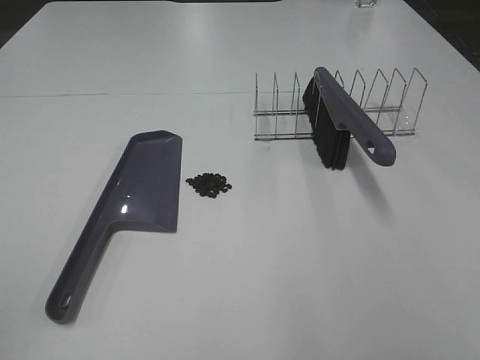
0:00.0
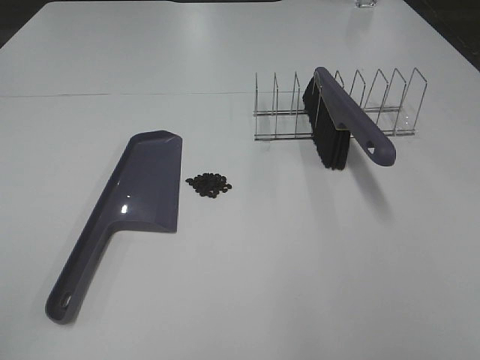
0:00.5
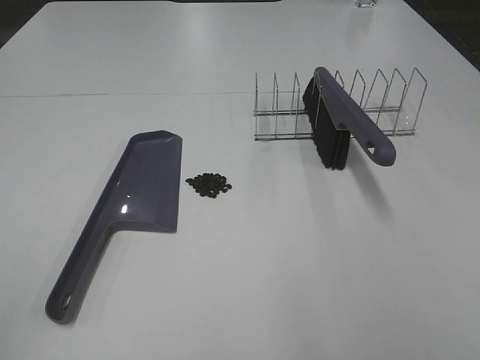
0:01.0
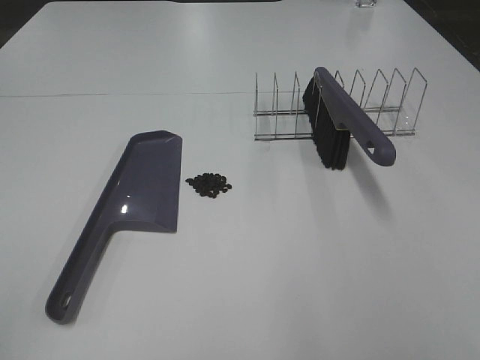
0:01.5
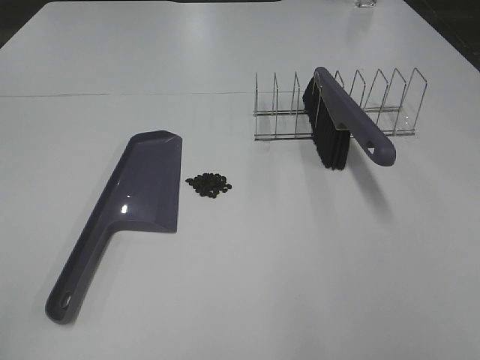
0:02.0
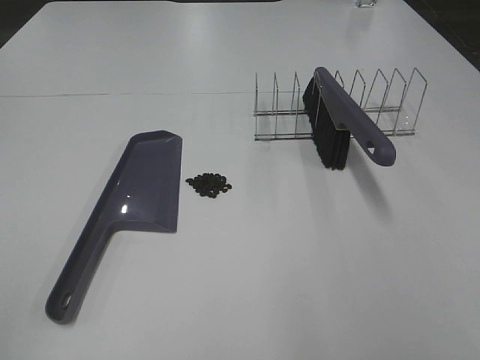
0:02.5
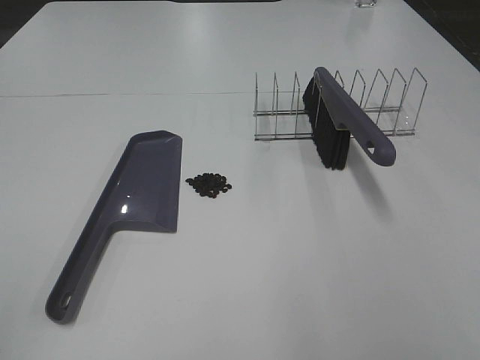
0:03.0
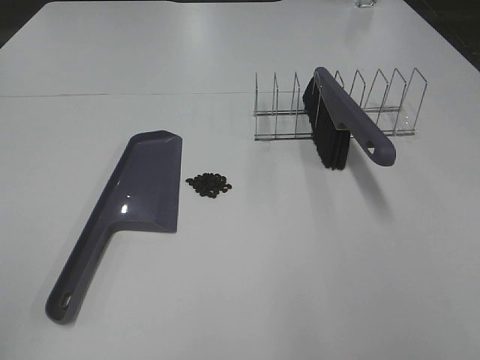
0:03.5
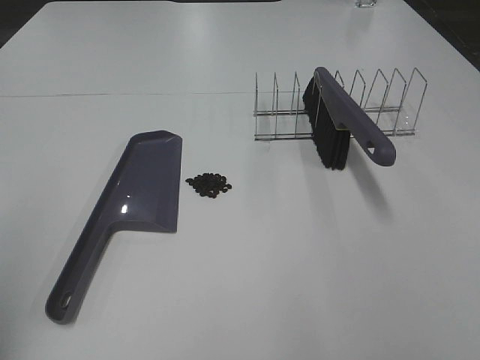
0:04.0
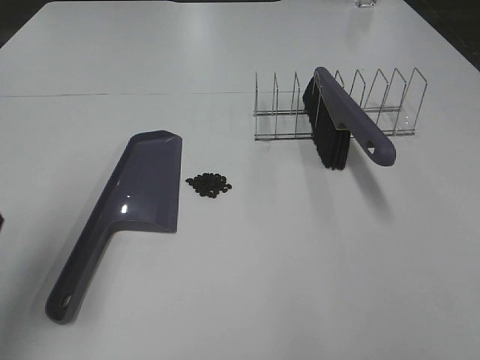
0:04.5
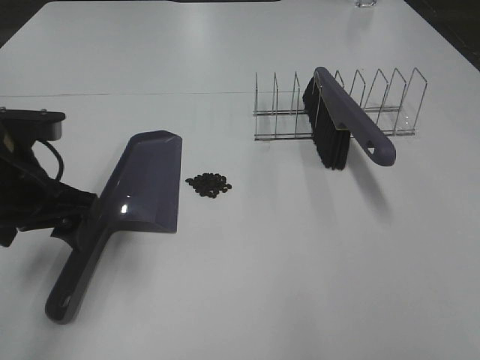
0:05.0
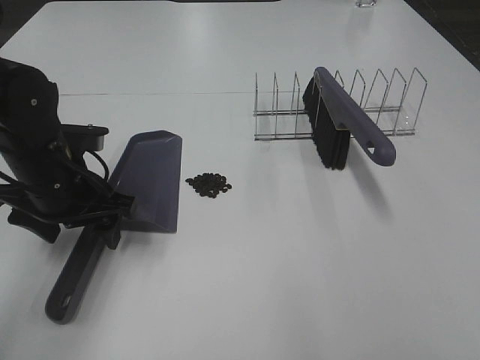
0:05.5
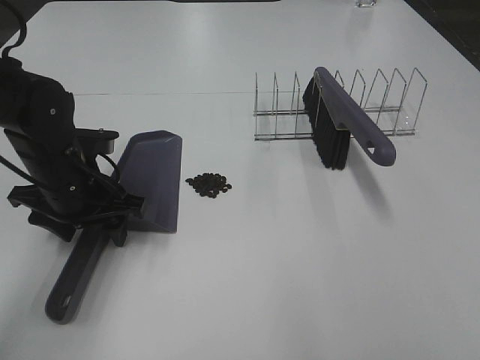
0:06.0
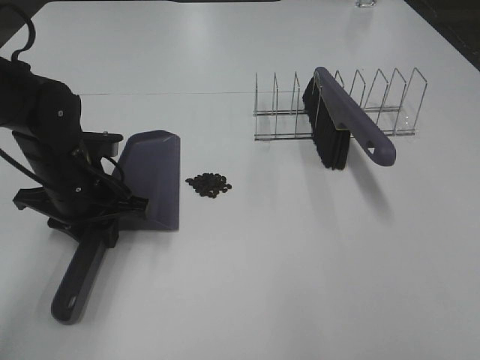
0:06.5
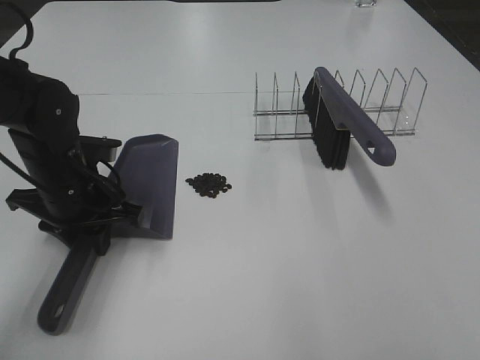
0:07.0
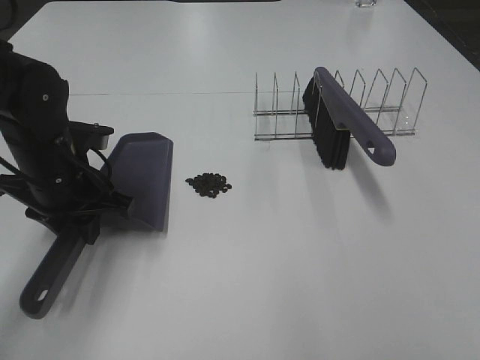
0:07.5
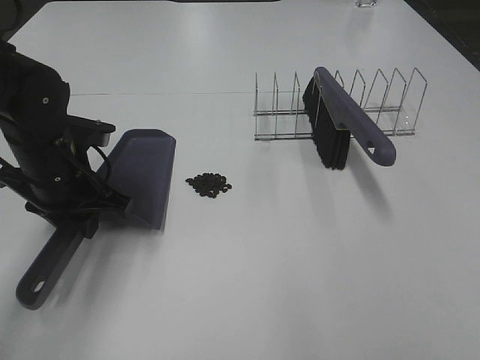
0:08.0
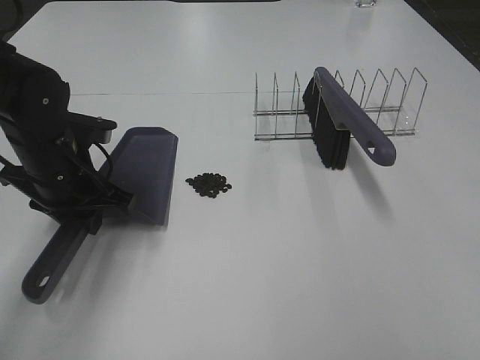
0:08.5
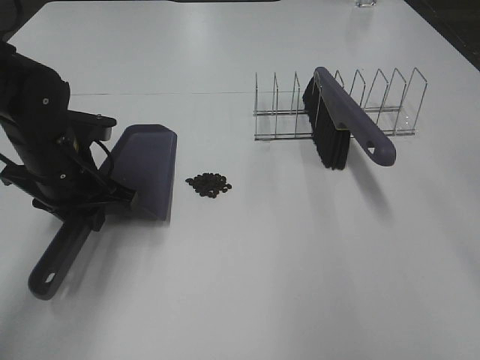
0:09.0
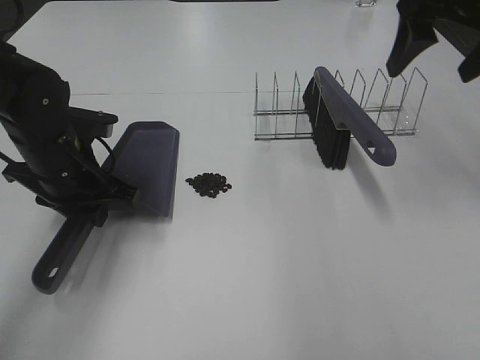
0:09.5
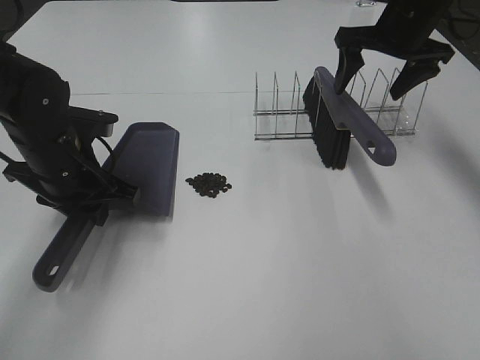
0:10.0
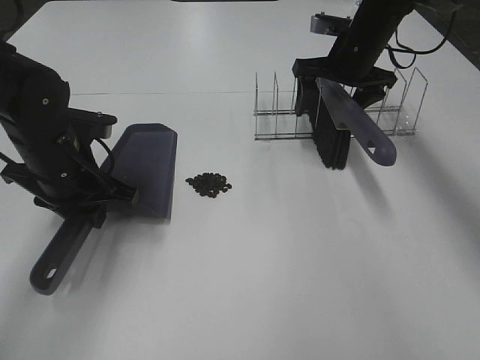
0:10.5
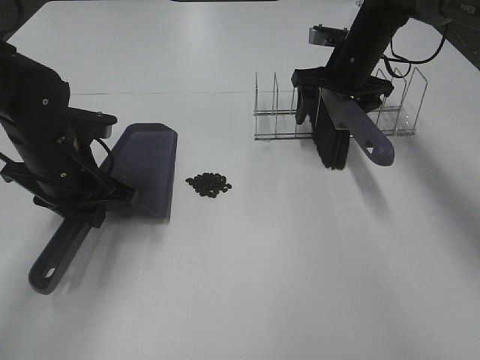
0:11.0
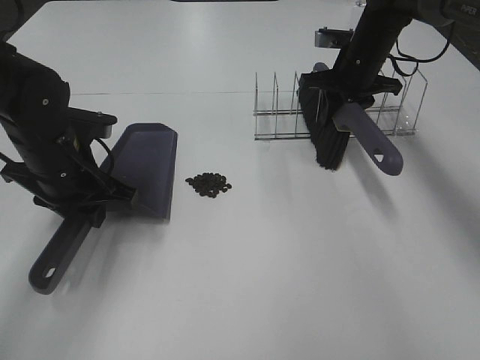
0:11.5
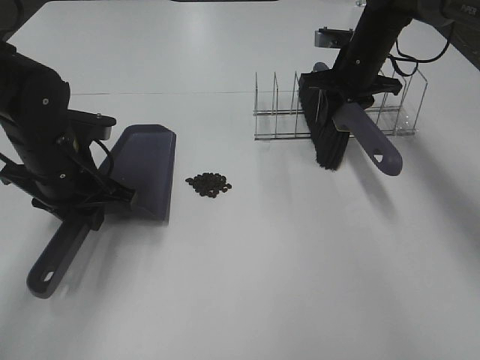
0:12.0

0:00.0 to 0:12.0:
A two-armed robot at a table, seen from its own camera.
Task of the whole recording: Sweep Coffee Bean.
Step, 0:00.0 to 0:06.0: Left hand: grab the dustpan.
Step, 0:08.0 to 0:11.0: Right hand:grab the broom.
0:00.0 to 0:02.0: Both grippers stay put.
0:04.0 to 0:06.0: The left gripper moves forward, downward and to the right, approximately 35 cm, and closes its fingers.
0:06.0 to 0:08.0: The left gripper closes up.
0:08.0 to 0:10.0: The right gripper heads forward, covering some 50 cm.
0:10.0 to 0:12.0: The right gripper shifts approximately 5 cm downward, and closes up.

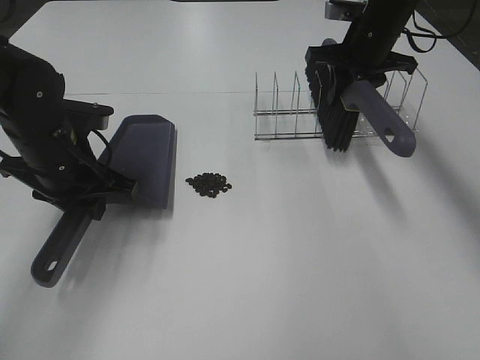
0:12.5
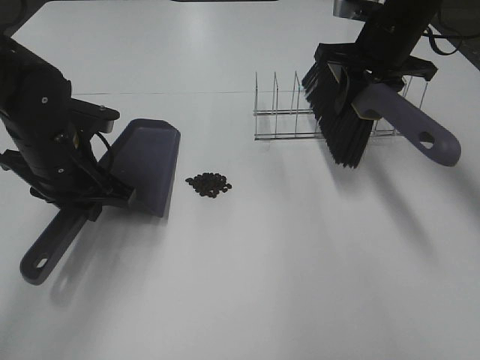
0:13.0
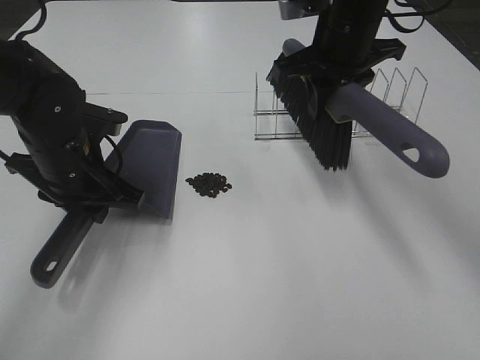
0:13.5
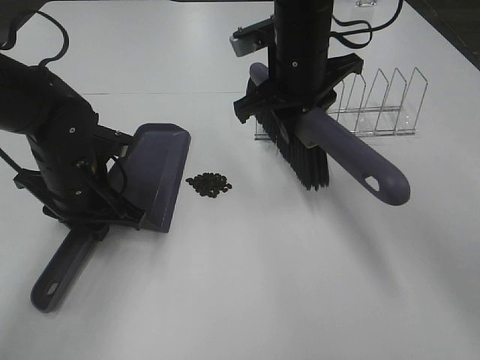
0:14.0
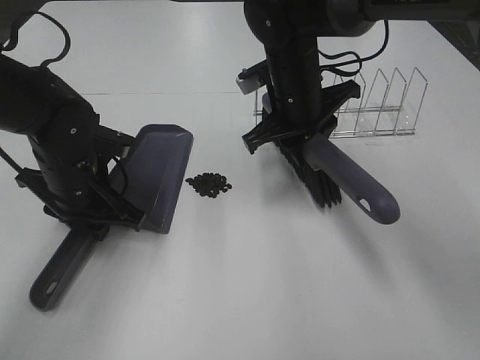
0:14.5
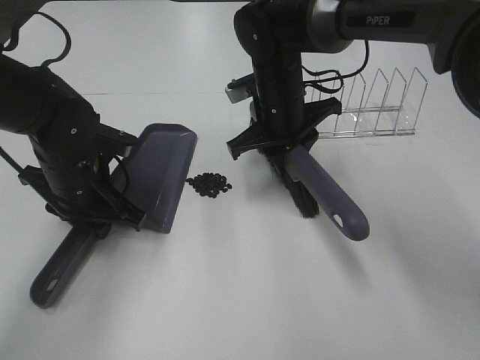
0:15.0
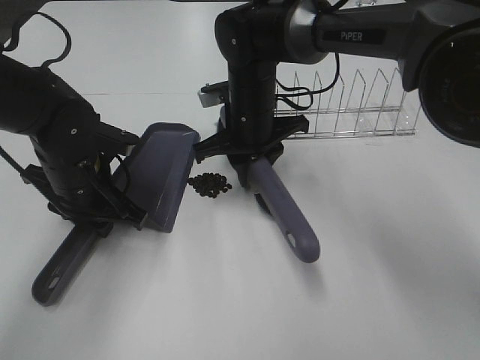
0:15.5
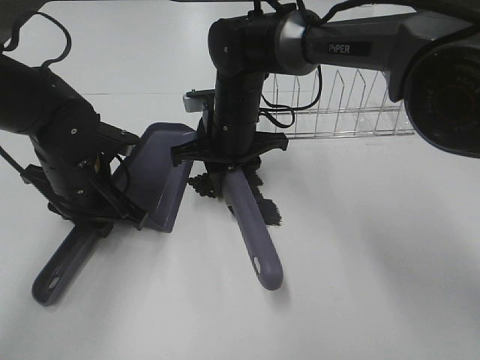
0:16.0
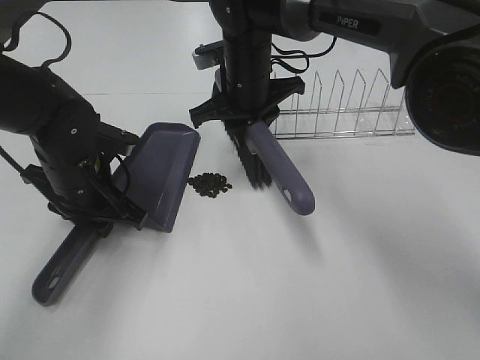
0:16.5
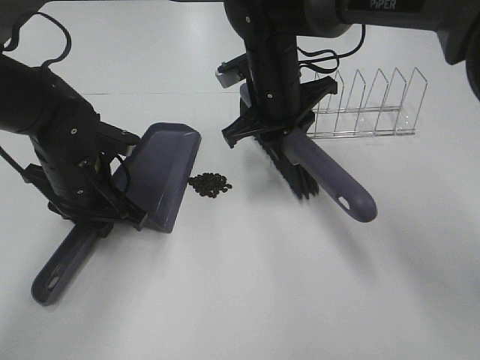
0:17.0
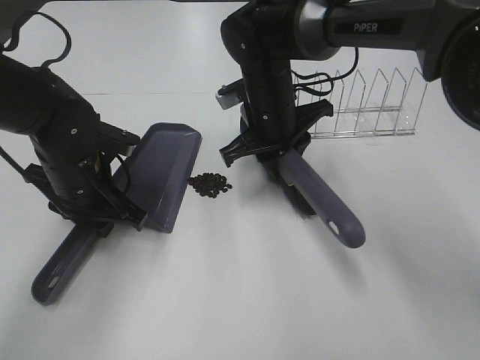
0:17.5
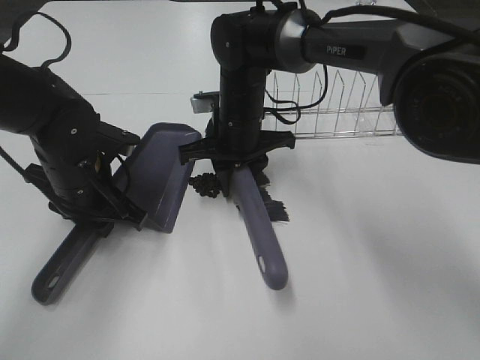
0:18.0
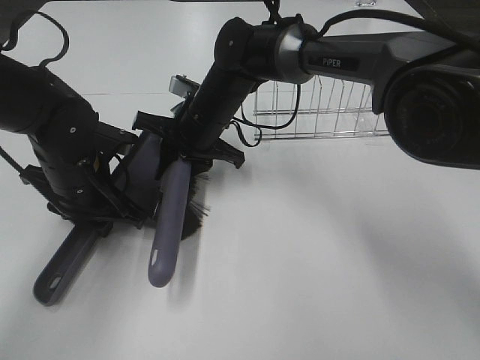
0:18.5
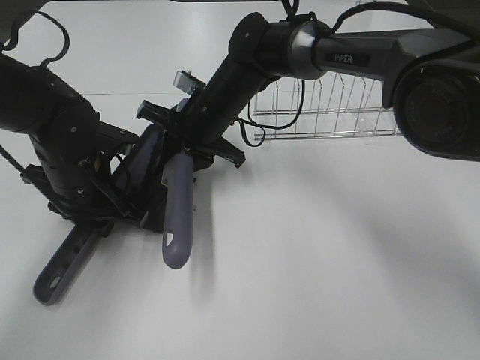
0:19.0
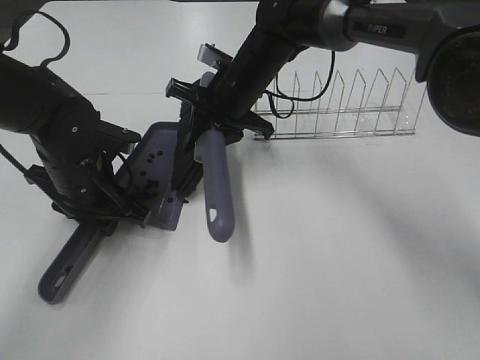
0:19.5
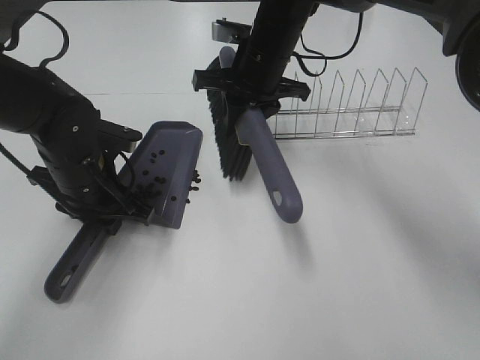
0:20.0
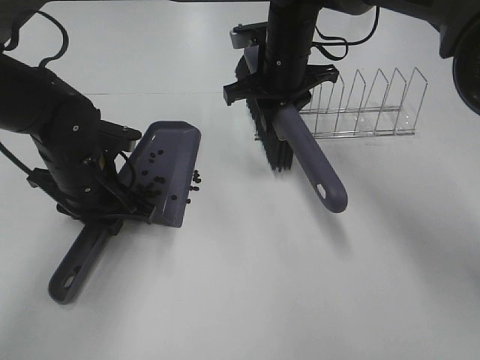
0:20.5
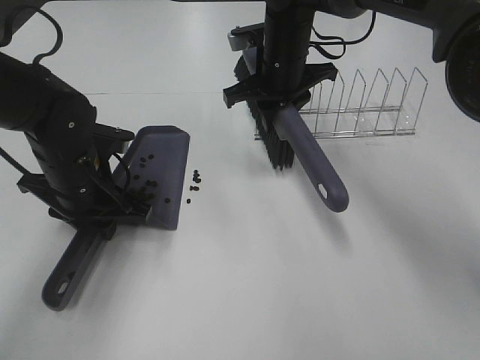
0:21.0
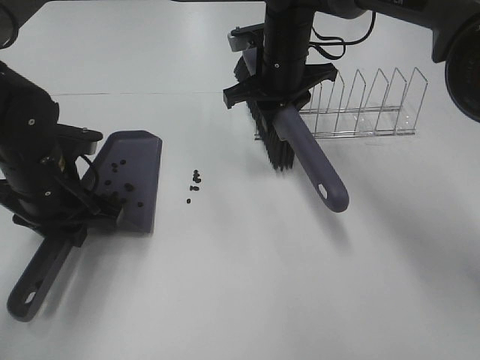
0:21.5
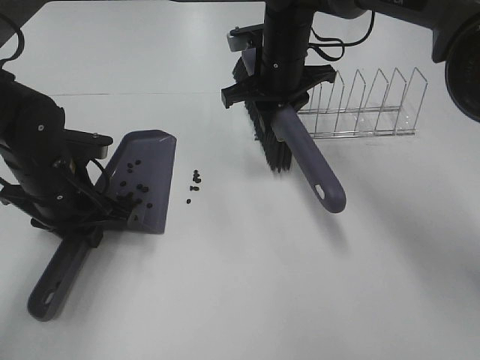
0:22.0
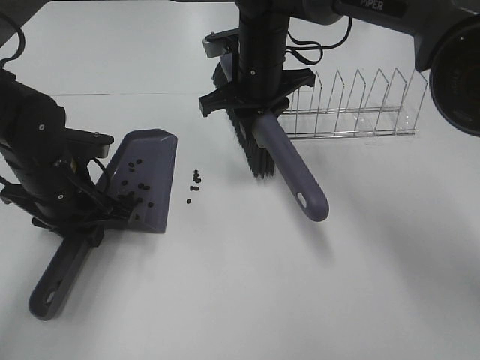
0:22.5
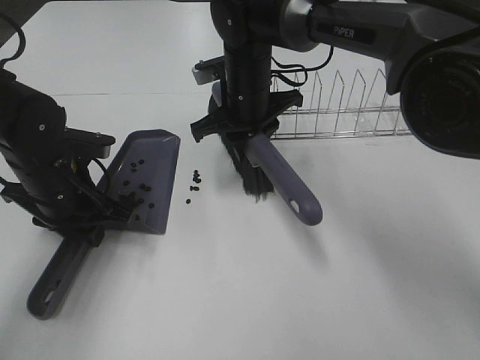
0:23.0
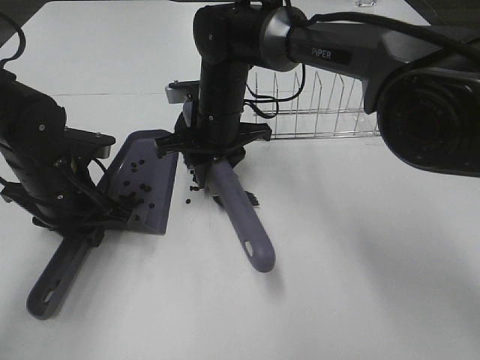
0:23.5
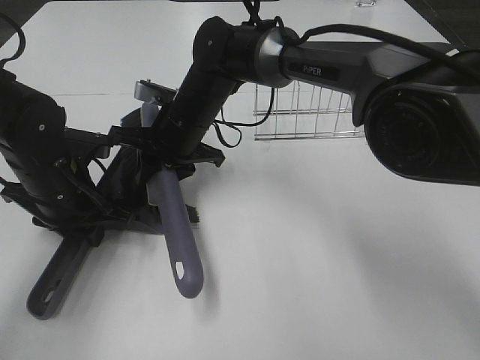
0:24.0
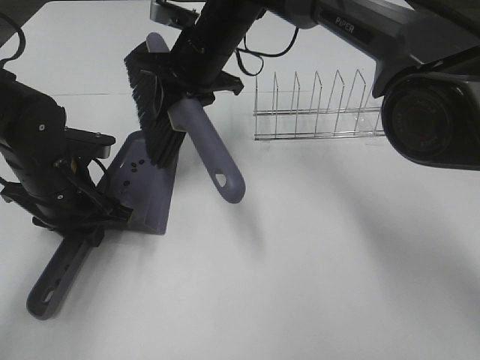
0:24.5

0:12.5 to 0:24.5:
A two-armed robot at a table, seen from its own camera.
Task of the whole recording: Sweep Coffee Bean.
Step, 0:12.5 to 0:24.0: Right hand:sweep the coffee beans into the dustpan.
0:12.5 to 0:14.5: The right gripper goes approximately 15 cm to the left and backward.
0:14.5 to 0:16.5: The right gripper travels to the left by approximately 5 cm.
0:16.5 to 0:18.5: The right gripper is displaced downward by roughly 5 cm.
0:18.5 to 0:20.5: The right gripper goes approximately 10 cm to the right and upward.
0:22.5 to 0:24.5: The right gripper moves to the left, some 5 cm.

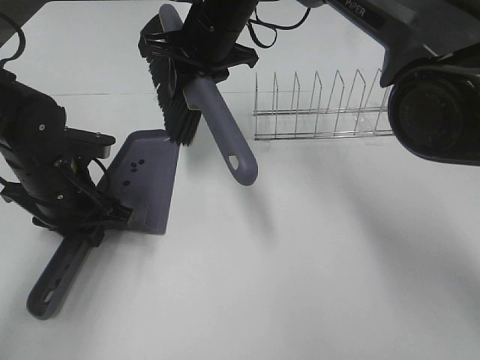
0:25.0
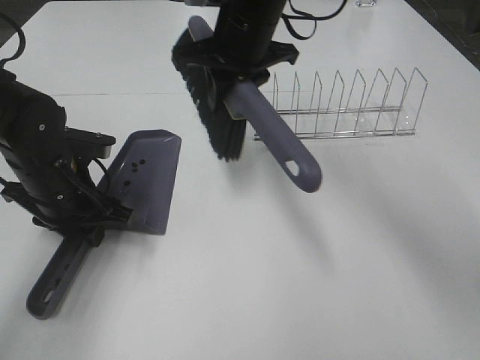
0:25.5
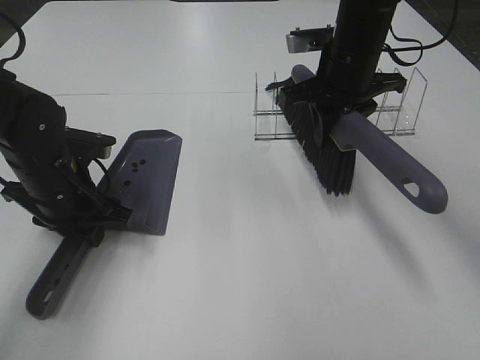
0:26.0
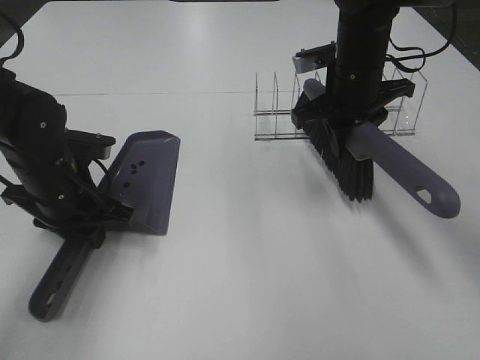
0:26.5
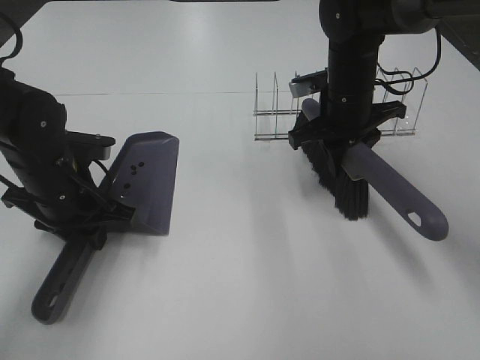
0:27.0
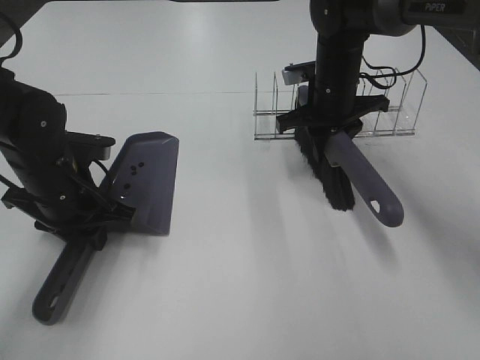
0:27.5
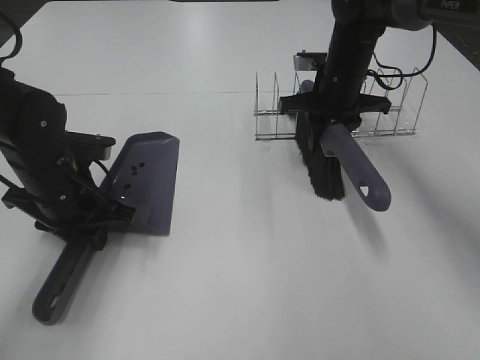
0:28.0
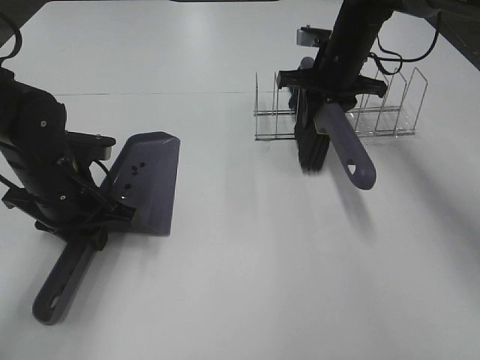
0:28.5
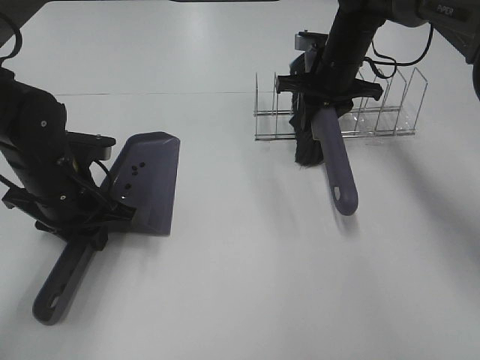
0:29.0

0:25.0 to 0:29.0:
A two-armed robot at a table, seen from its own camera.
Task of the whole recording: Sweep Coffee Bean.
0:25.0 to 0:27.0: The right gripper goes roughly 20 cm to the right and downward.
0:27.0 to 0:29.0: The right gripper is displaced forward by about 10 cm.
